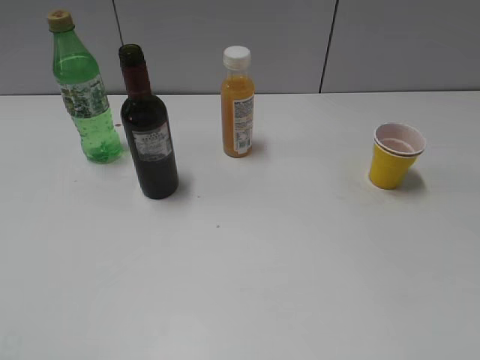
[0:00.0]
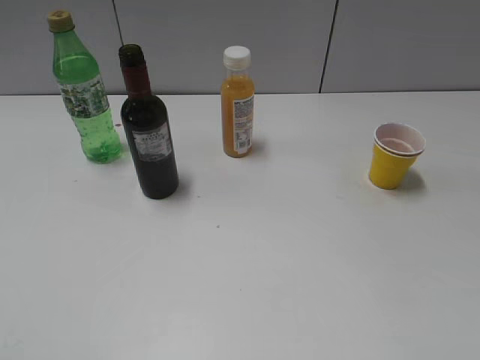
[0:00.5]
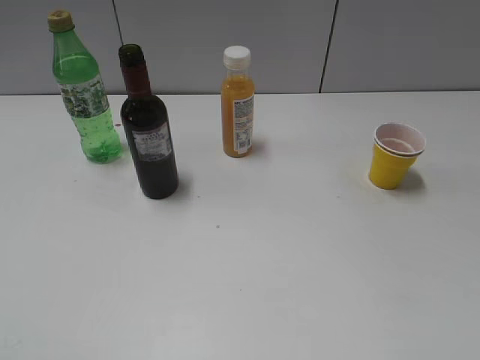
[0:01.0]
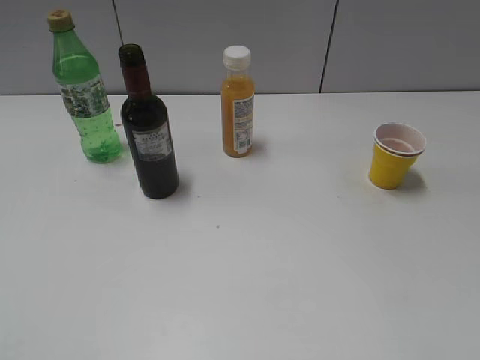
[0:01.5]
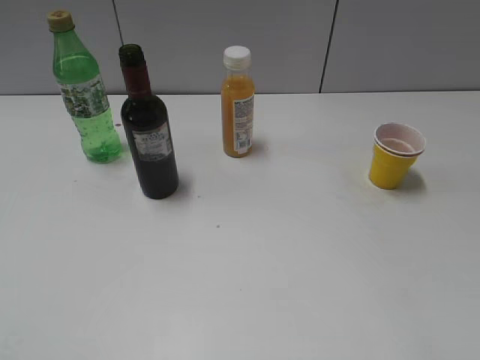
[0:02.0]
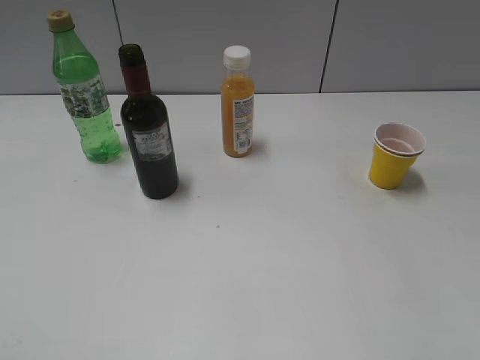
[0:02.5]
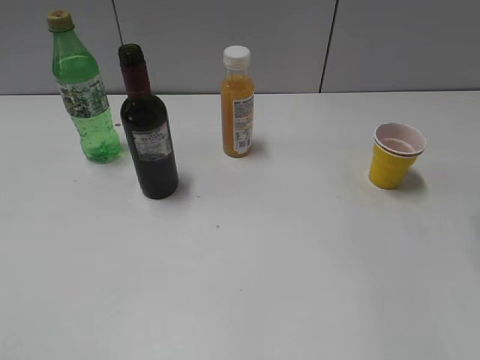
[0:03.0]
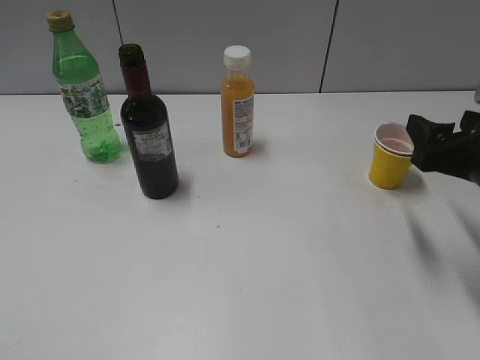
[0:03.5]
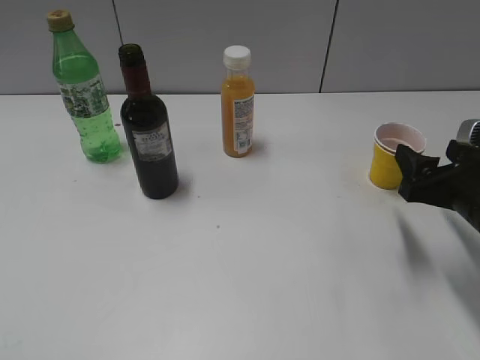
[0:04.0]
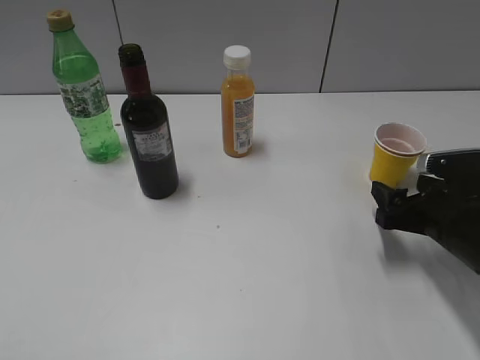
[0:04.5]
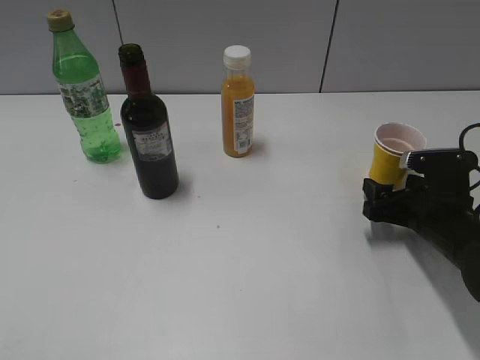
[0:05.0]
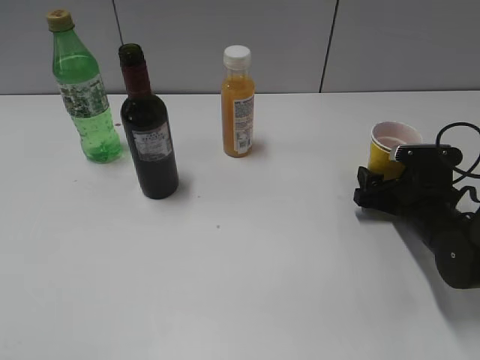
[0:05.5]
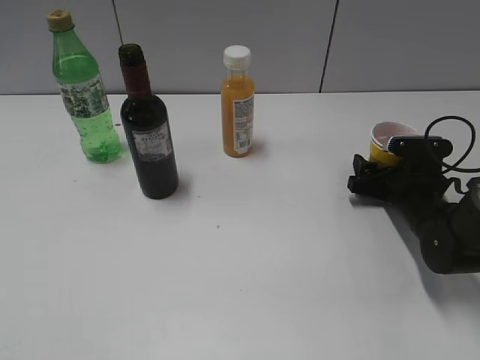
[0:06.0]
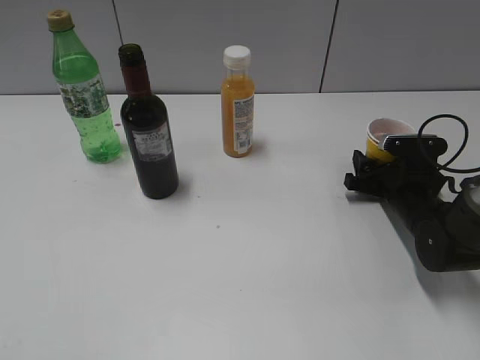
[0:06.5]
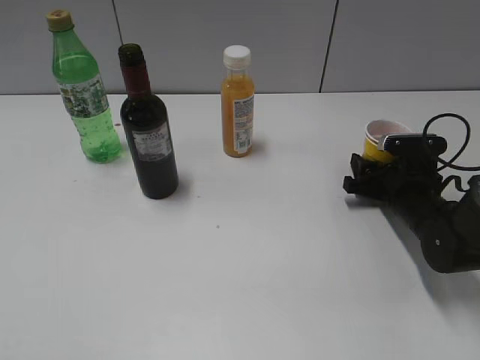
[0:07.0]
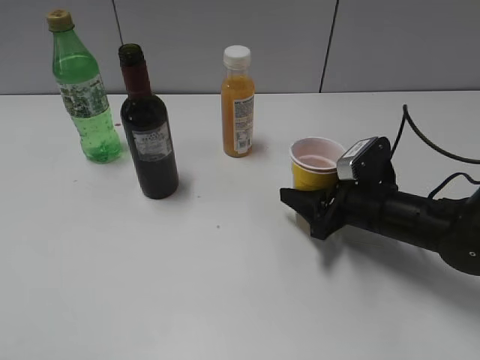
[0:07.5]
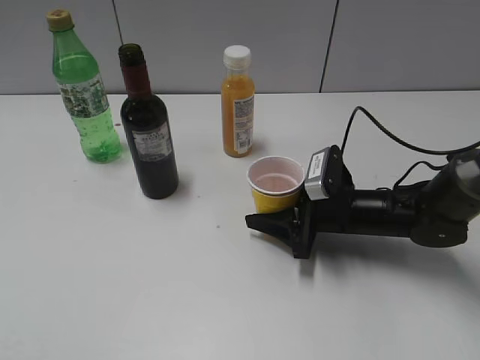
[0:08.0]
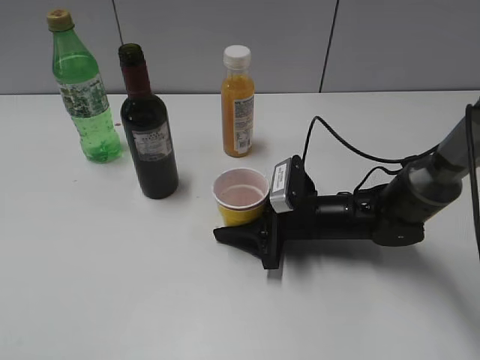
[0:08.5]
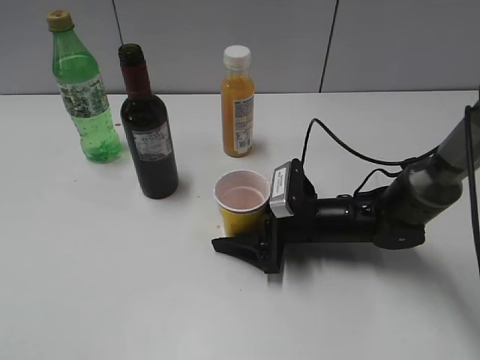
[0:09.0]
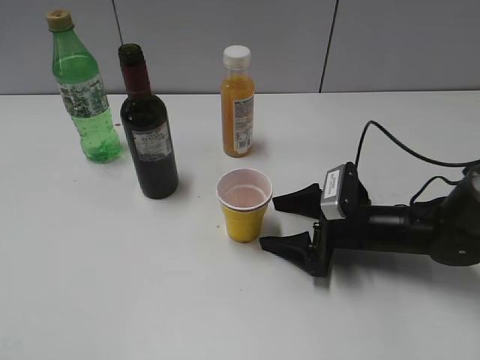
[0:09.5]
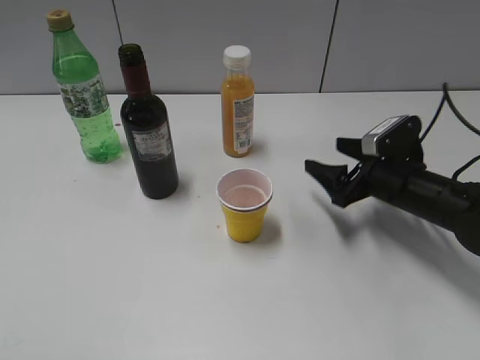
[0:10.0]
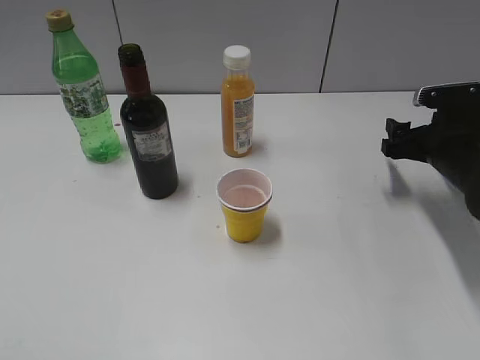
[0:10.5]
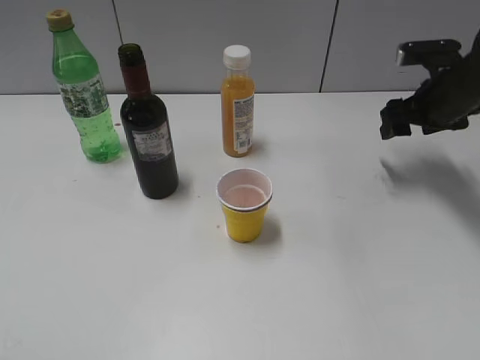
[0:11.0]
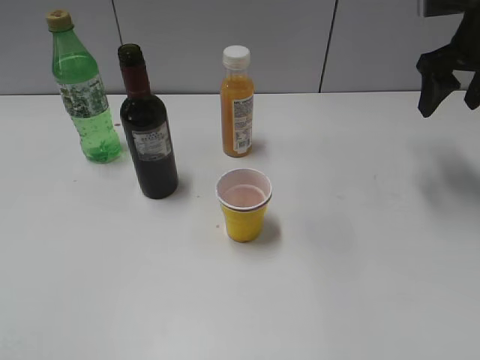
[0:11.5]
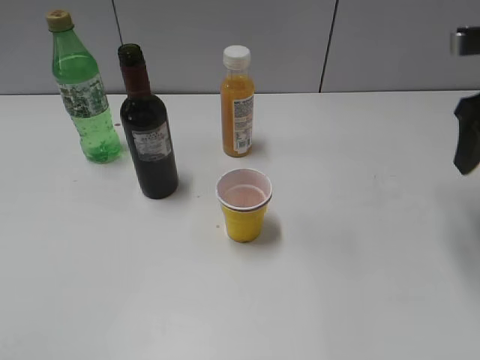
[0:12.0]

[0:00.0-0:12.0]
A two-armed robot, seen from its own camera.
Step, 0:01.0 to 0:06.5: Grasp the yellow paper cup with right gripper.
Step, 0:07.0 to 0:09.5: Place the yellow paper cup on the table with right gripper.
0:02.0 to 0:04.0: The right gripper heads forward and downward, covering some 25 cm.
0:04.0 to 0:06.0: The right gripper is displaced downward and forward by some 15 cm.
0:06.0 to 0:08.0: The right gripper moves to the left, about 10 cm, and closes up.
0:08.0 to 0:10.0: The right gripper is displaced to the right by approximately 5 cm, and opens.
0:10.0 to 0:12.0: The right gripper goes some 20 cm upward.

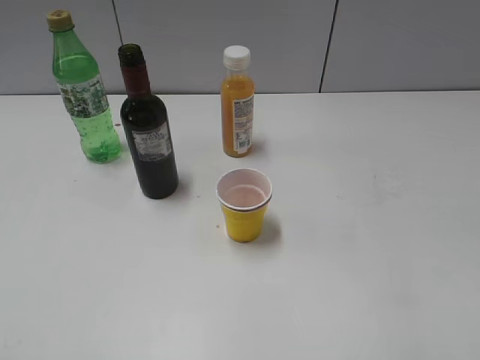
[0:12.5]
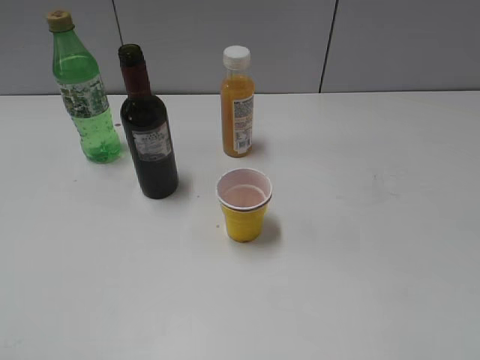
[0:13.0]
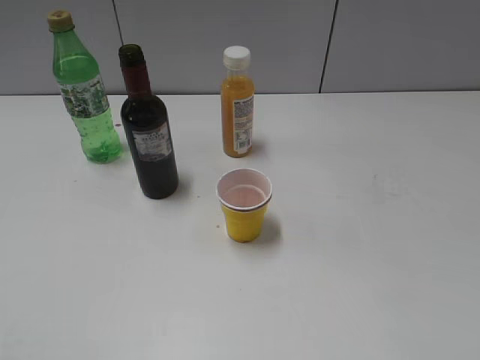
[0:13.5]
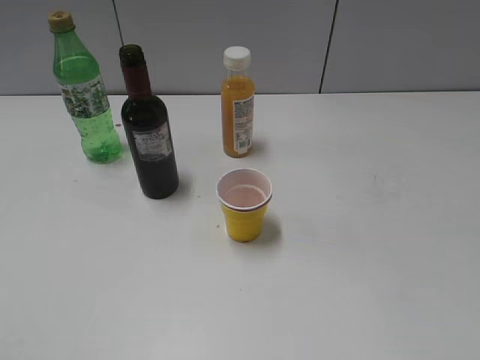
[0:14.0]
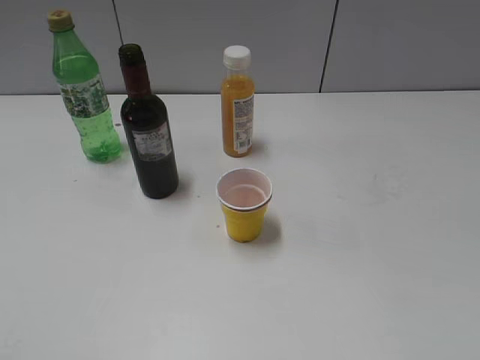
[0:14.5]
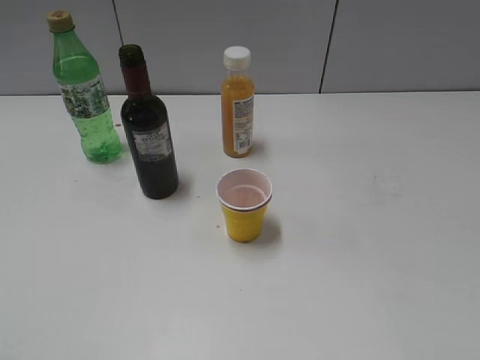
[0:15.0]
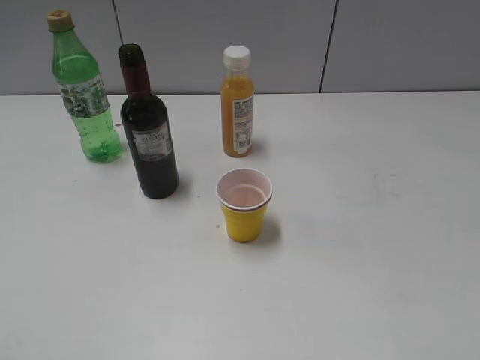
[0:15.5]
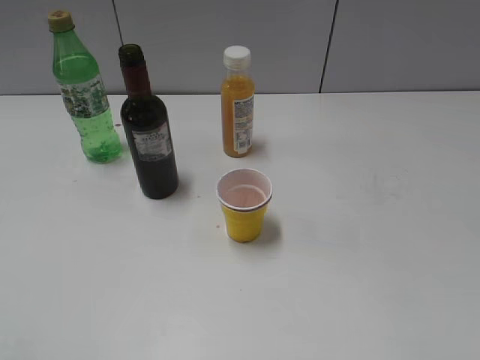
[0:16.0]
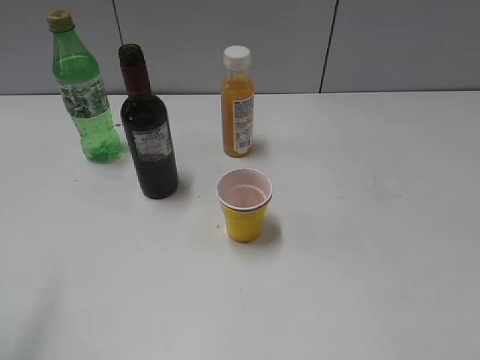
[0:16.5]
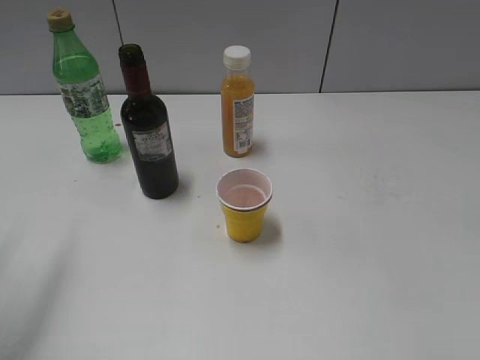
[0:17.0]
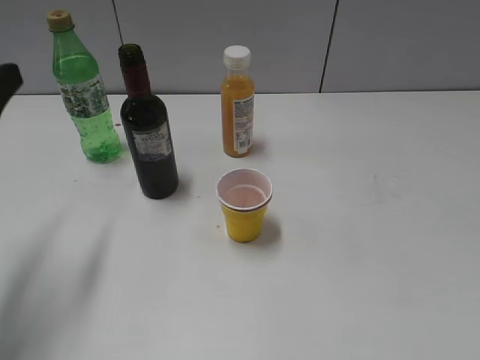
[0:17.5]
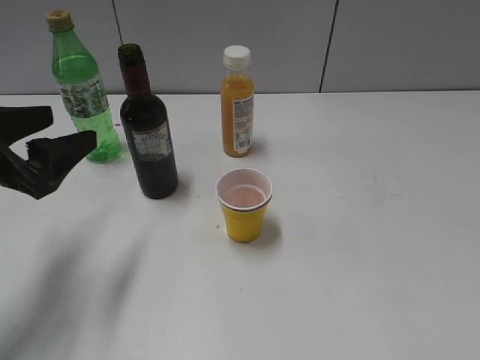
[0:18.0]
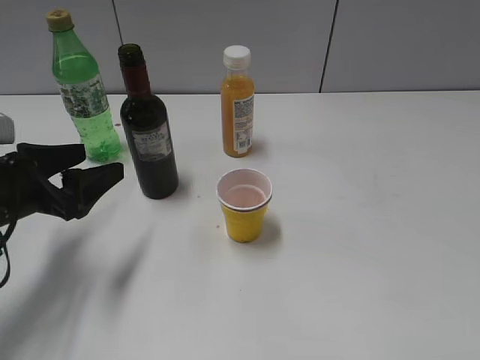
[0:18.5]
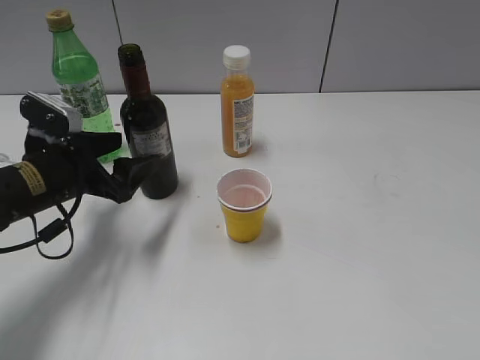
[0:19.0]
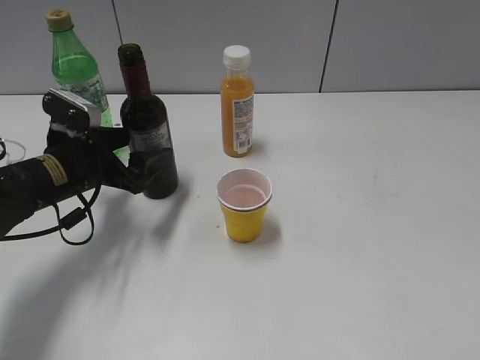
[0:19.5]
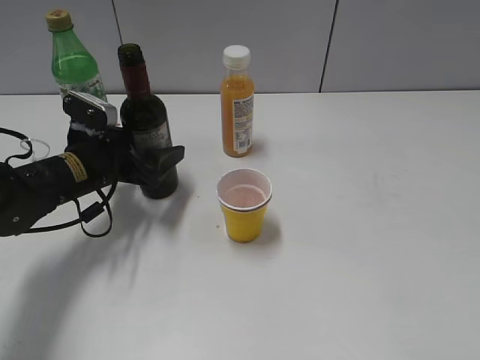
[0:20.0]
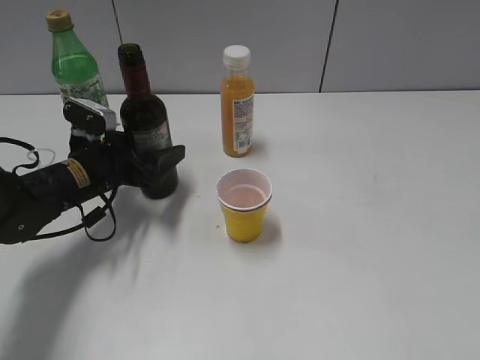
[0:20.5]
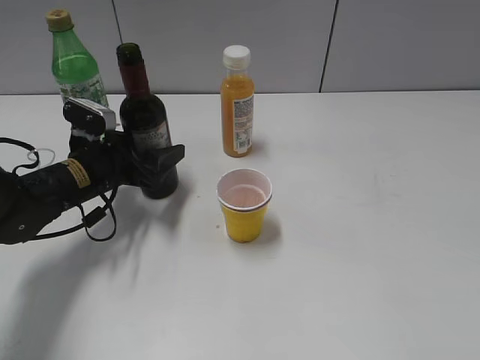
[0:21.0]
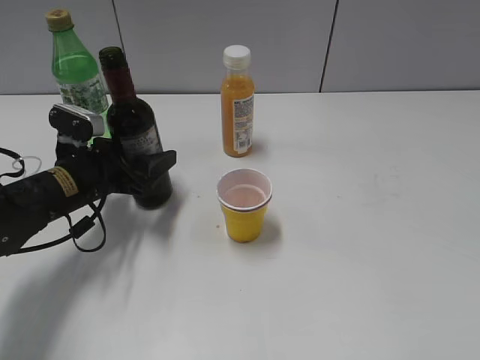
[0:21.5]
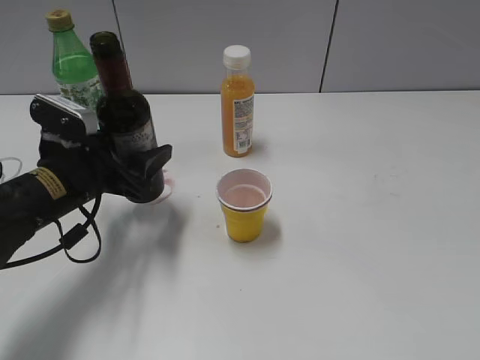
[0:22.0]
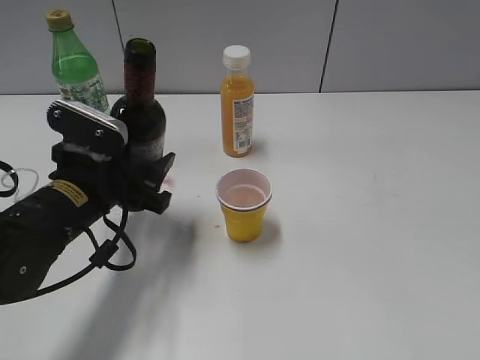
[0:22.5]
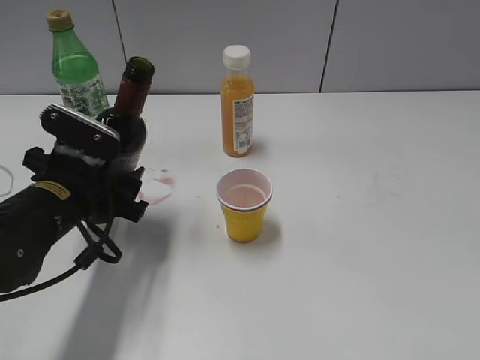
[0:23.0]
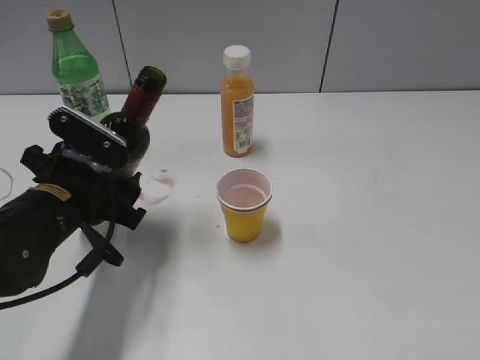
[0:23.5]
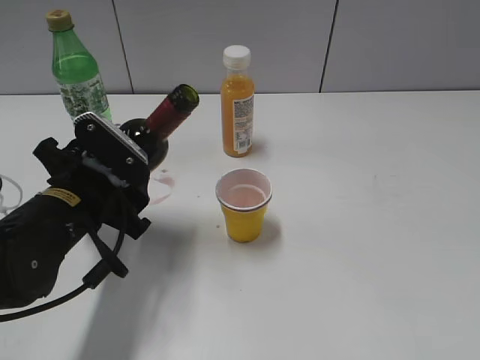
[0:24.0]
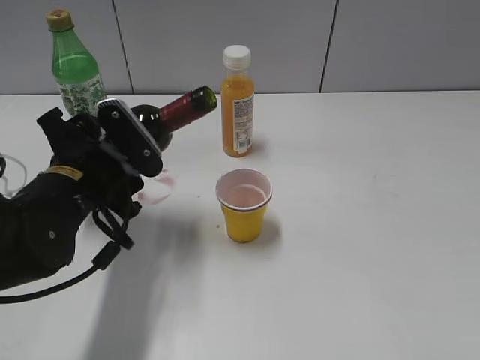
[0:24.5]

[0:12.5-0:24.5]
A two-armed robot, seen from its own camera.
Step, 0:12.5 to 0:21.0: Grasp the bottle with red wine with left gripper.
0:16.5 to 0:18.5: The left gripper goes roughly 25 cm downward and forward, and opens its fingers.
0:18.5 to 0:20.5: The left gripper moves forward, to the right and downward, approximately 10 cm, and closes.
0:20.5 to 0:22.5: The left gripper goes about 10 cm backward. The right gripper closes, then opens again.

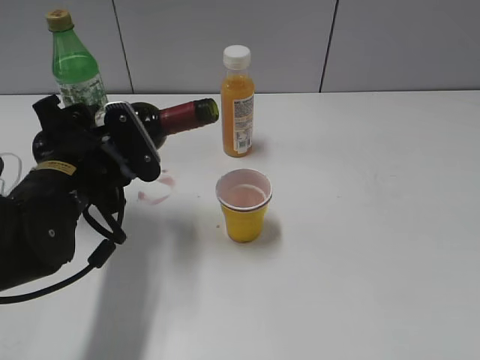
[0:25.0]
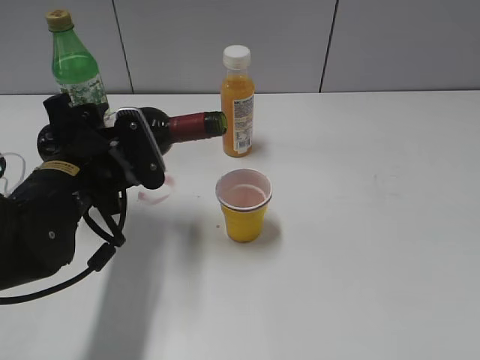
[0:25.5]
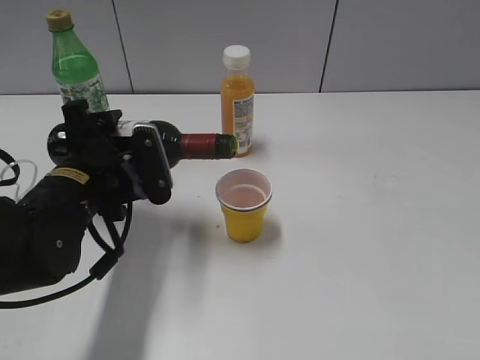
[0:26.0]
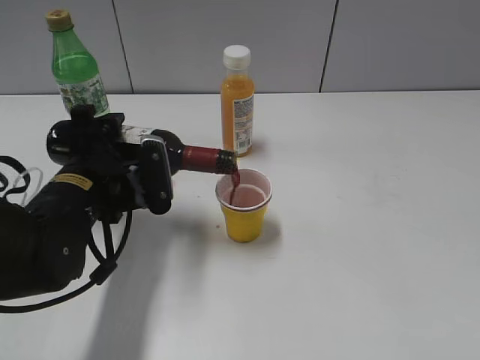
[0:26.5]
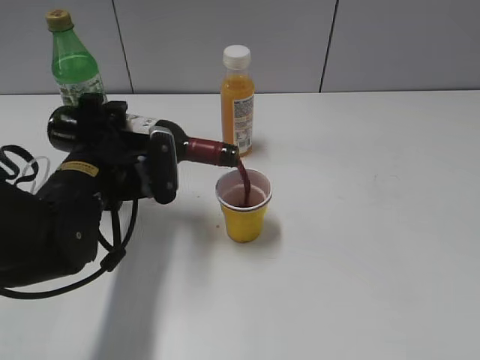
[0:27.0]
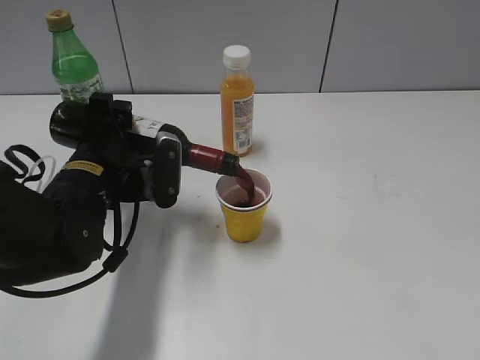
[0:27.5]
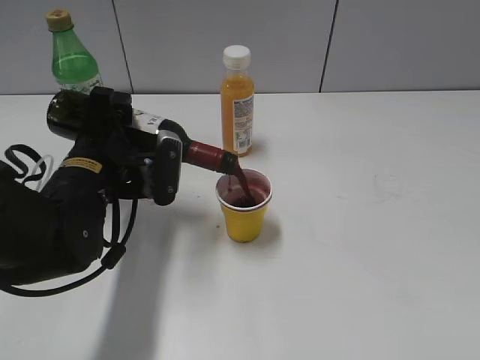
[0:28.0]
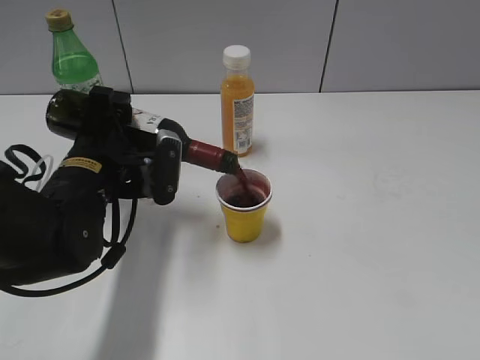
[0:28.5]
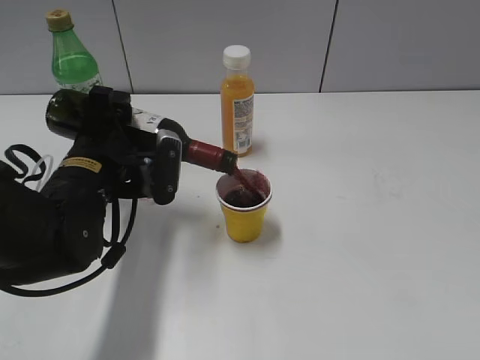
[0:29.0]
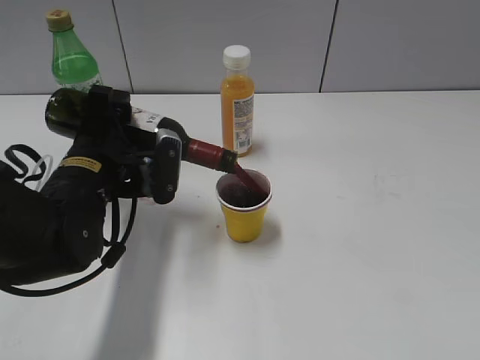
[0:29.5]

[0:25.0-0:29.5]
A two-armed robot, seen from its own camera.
0:27.0 to 0:29.5: There are only small adjustments of the grippers.
